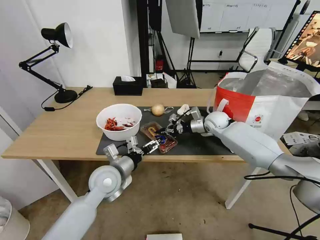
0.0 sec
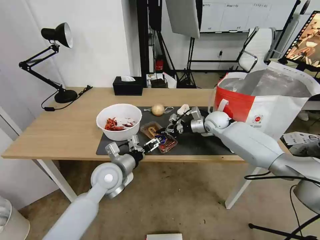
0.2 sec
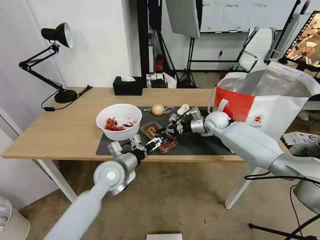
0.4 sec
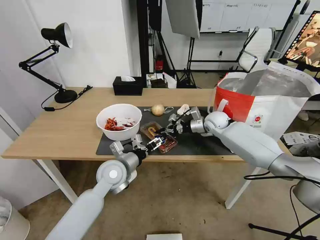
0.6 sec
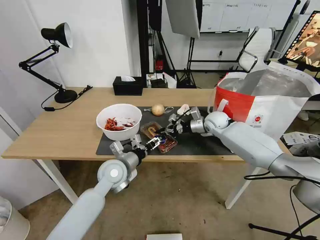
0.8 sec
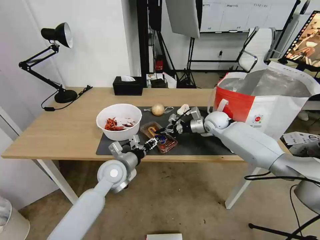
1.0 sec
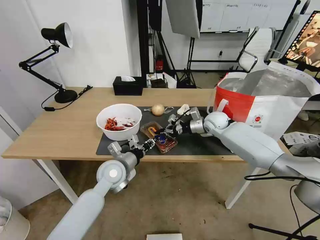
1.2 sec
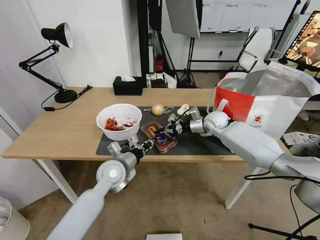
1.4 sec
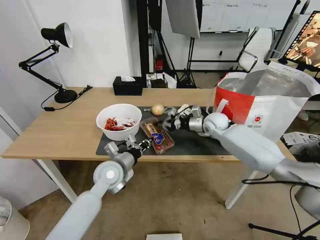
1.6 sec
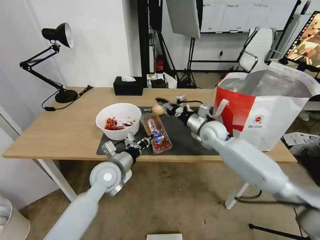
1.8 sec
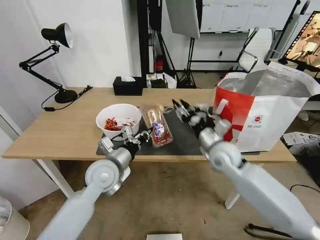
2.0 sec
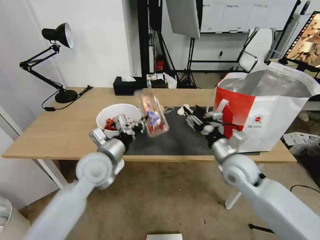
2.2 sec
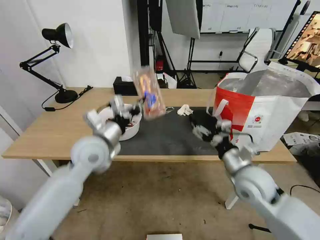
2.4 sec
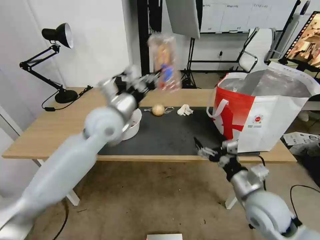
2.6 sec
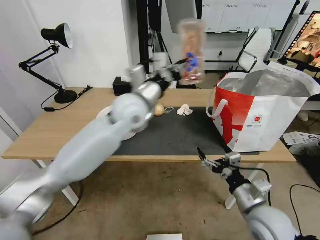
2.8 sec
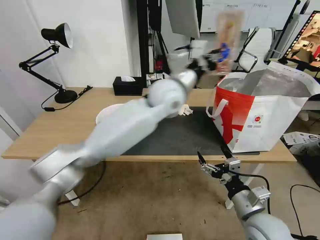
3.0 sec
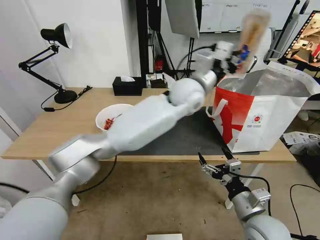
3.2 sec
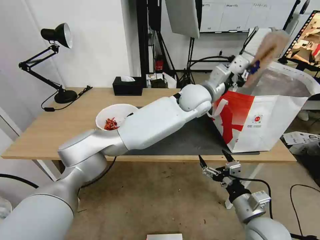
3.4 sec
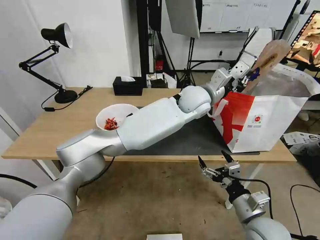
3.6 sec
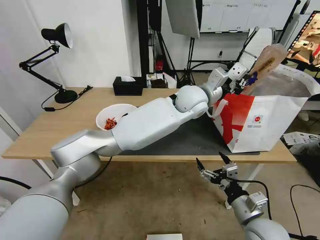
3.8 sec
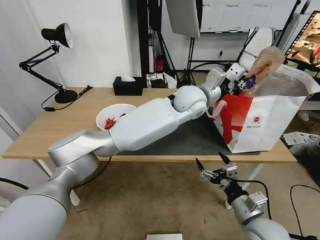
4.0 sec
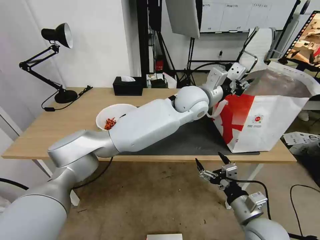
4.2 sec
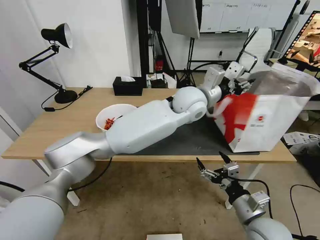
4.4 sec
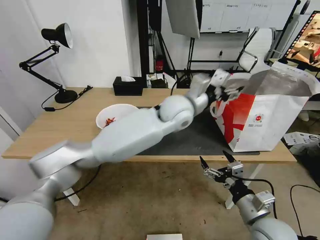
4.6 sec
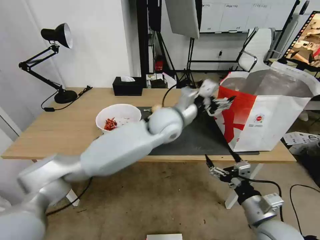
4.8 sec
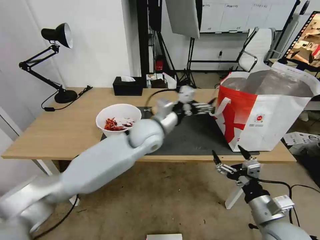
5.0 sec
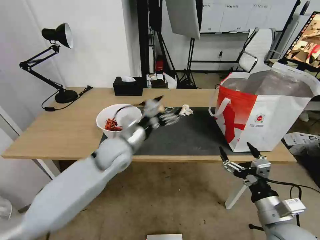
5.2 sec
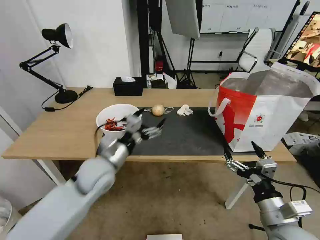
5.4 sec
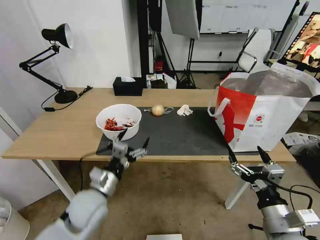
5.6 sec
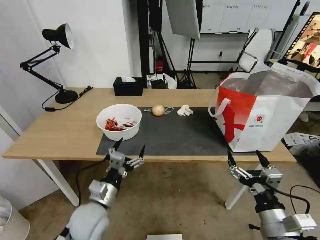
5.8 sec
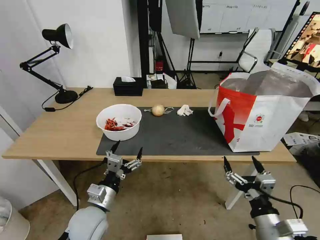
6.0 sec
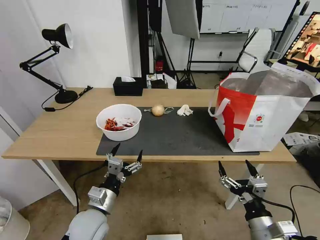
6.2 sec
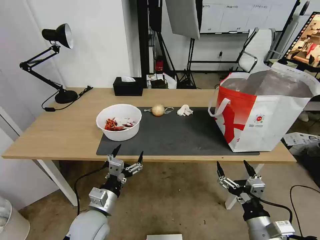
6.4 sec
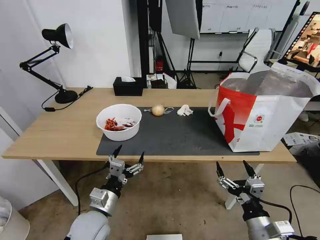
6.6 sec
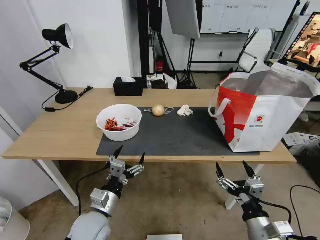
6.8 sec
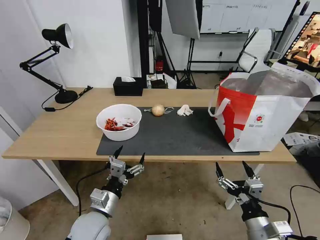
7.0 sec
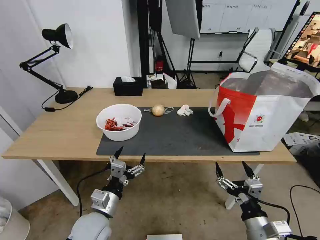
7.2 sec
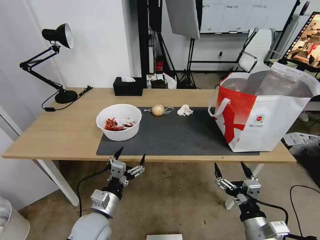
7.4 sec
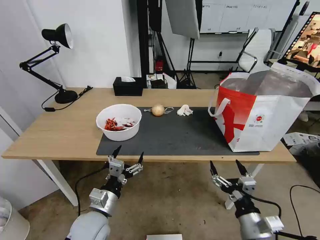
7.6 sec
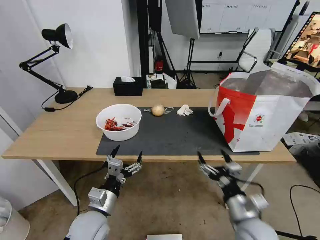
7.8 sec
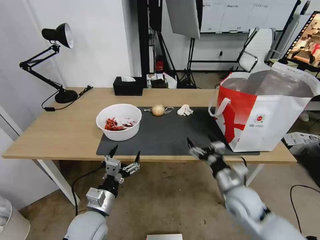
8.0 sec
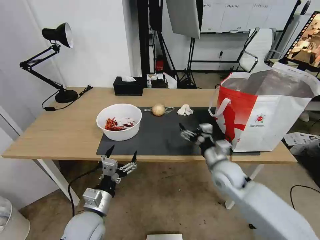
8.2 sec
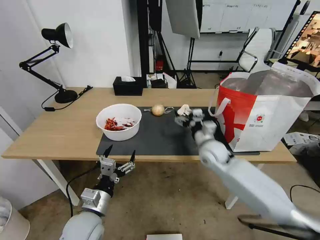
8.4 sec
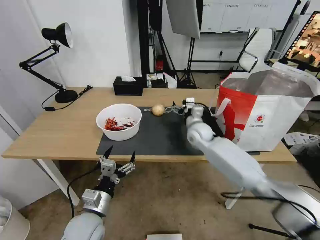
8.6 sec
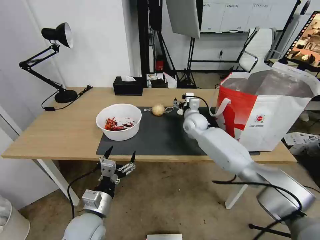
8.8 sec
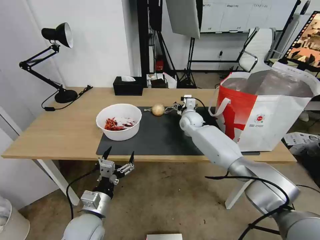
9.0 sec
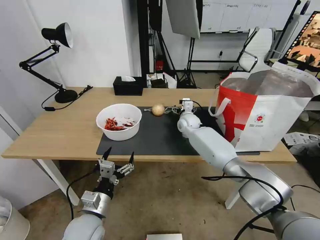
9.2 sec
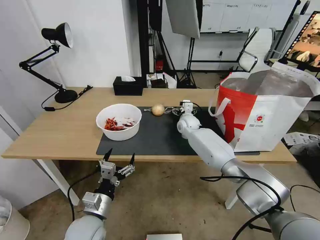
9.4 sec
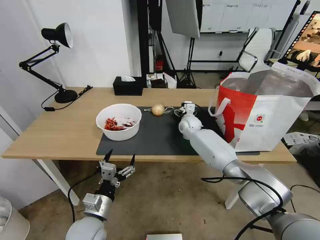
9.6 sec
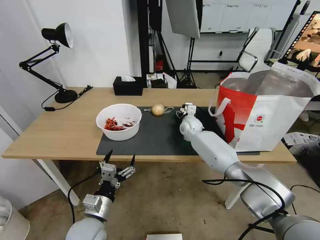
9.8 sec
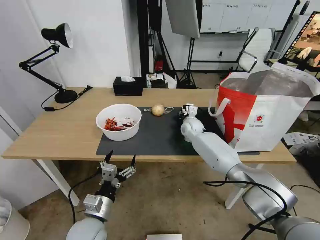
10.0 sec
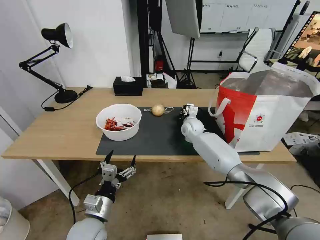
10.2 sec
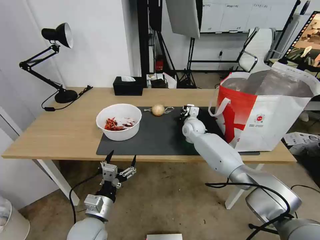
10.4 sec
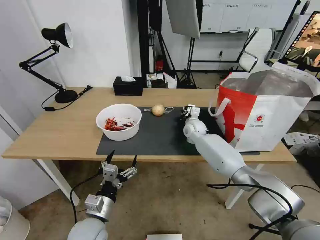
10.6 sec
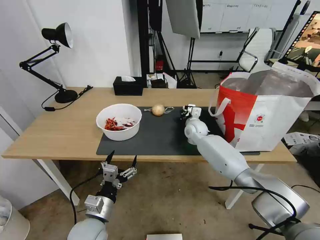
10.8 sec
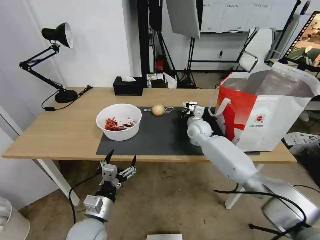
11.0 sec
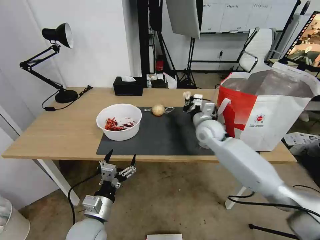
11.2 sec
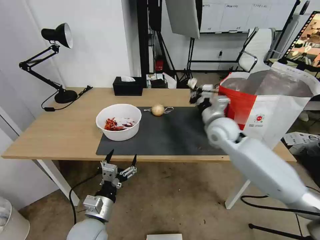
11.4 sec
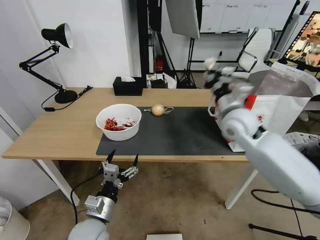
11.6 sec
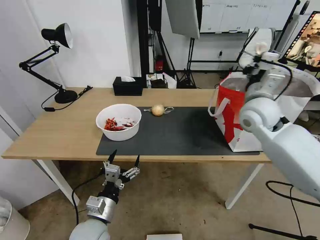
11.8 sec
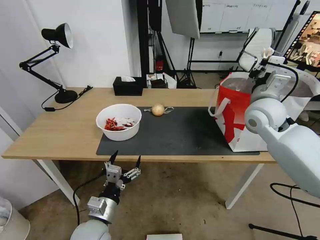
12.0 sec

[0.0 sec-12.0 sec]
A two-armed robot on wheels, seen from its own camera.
Task of the whole recording: Pick up the trash from the table and place it into the takeout bag.
0.0 sec to 1.6 sec: The left gripper closes up.
1.6 sec to 3.0 sec: The left gripper moves upward, to the right and forward, some 30 cm. Meanwhile the right gripper heads backward, covering some 35 cm, and opens.
3.0 sec to 4.4 sec: The left gripper travels to the right by roughly 5 cm, and opens up.
4.4 sec to 6.0 sec: The right gripper shifts roughly 5 cm backward; the left gripper goes roughly 40 cm to the left, backward and downward, and opens up.
6.0 sec to 7.6 sec: There are only small adjustments of the grippers.
7.6 sec to 9.0 sec: The right gripper is displaced forward by roughly 50 cm.
9.0 sec to 10.4 sec: The right gripper closes up.
10.4 sec to 12.0 sec: The right gripper is displaced upward, backward and to the right by roughly 30 cm.

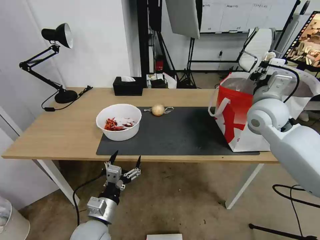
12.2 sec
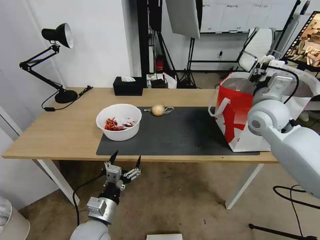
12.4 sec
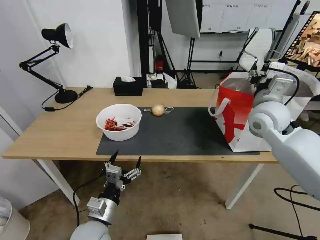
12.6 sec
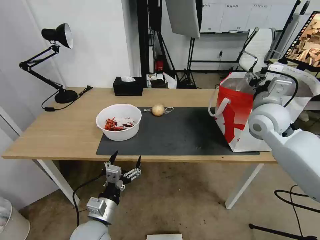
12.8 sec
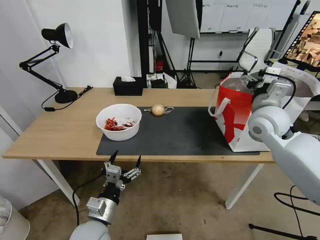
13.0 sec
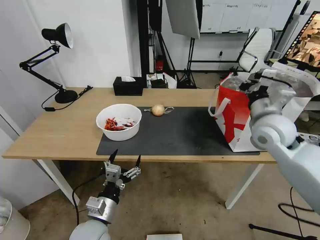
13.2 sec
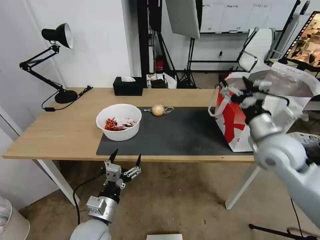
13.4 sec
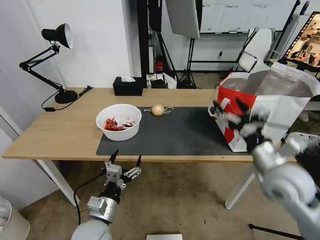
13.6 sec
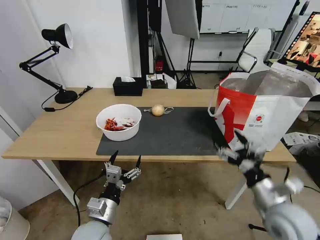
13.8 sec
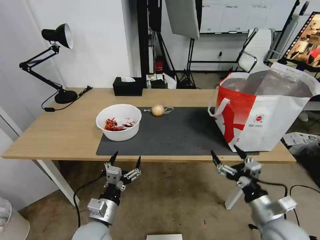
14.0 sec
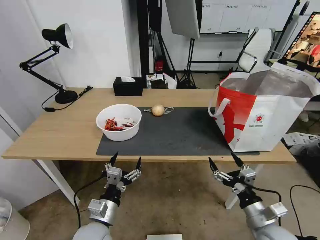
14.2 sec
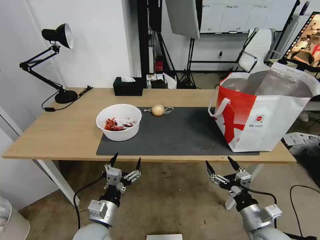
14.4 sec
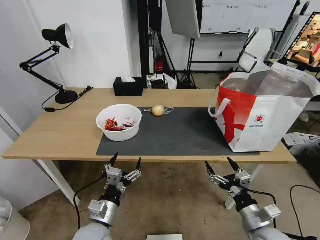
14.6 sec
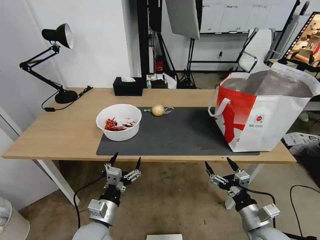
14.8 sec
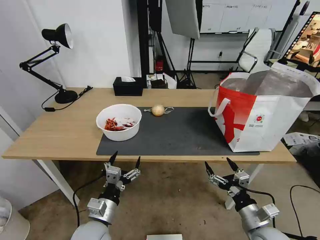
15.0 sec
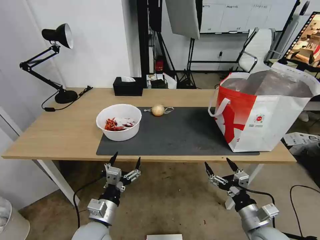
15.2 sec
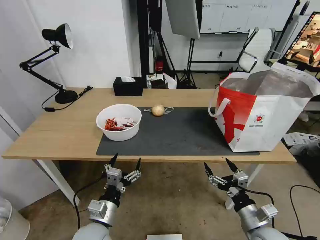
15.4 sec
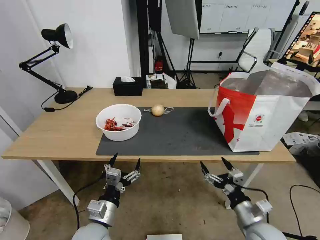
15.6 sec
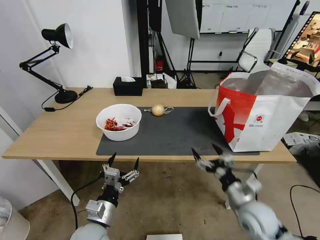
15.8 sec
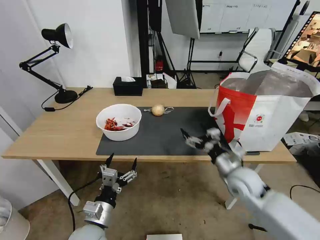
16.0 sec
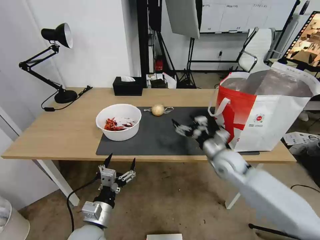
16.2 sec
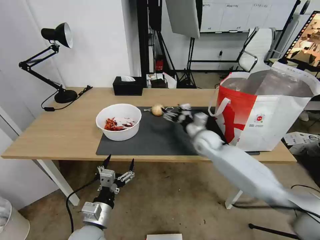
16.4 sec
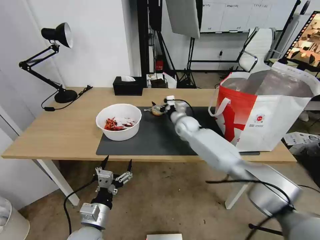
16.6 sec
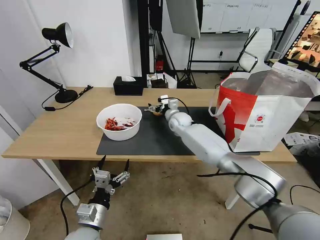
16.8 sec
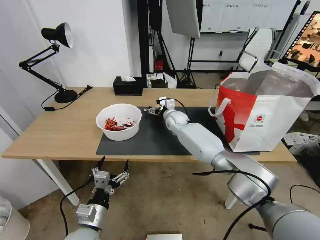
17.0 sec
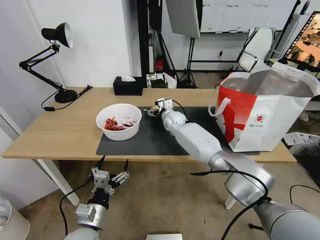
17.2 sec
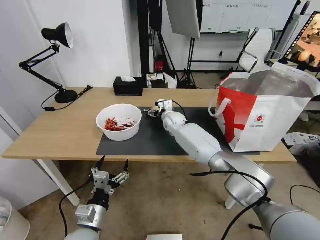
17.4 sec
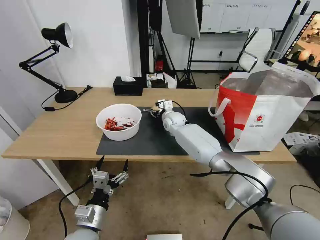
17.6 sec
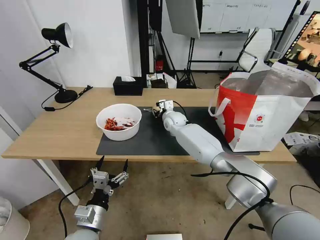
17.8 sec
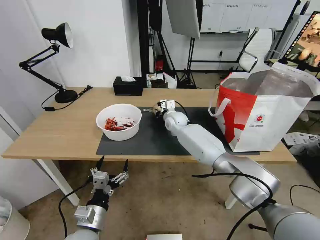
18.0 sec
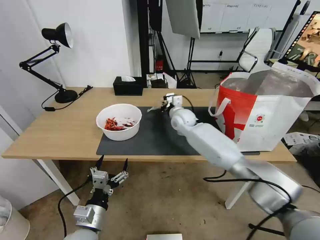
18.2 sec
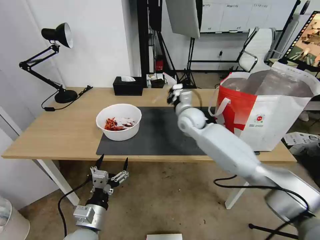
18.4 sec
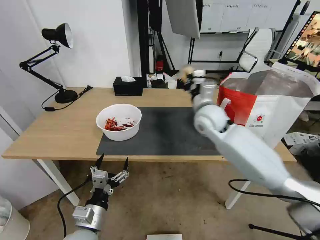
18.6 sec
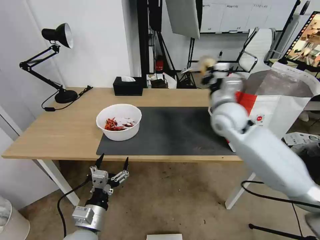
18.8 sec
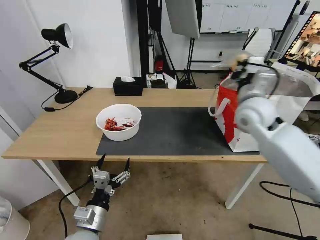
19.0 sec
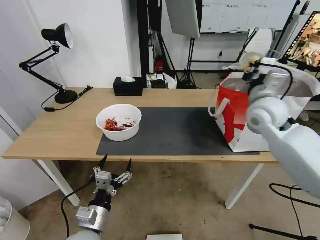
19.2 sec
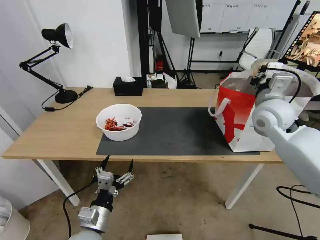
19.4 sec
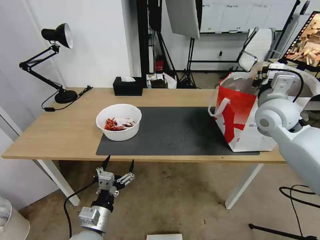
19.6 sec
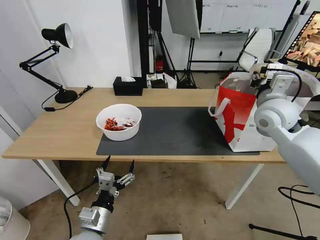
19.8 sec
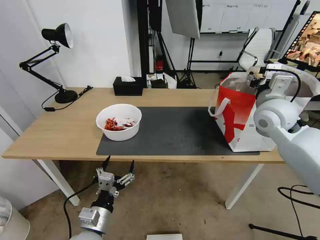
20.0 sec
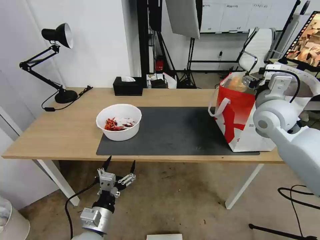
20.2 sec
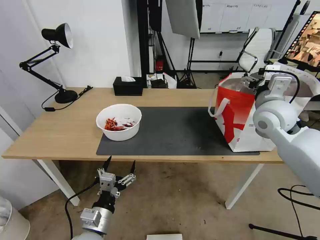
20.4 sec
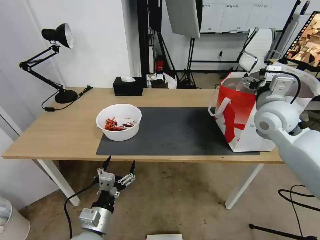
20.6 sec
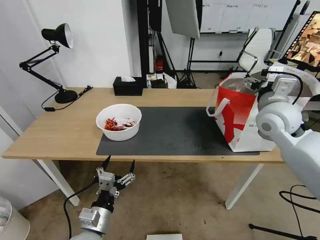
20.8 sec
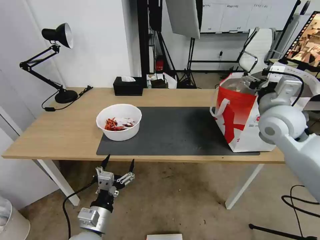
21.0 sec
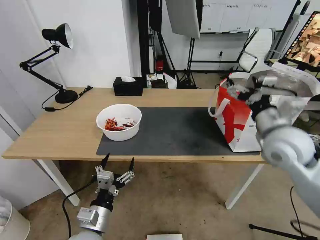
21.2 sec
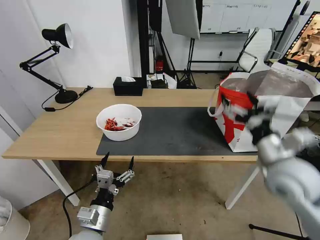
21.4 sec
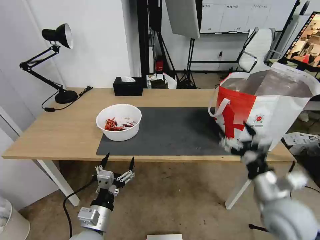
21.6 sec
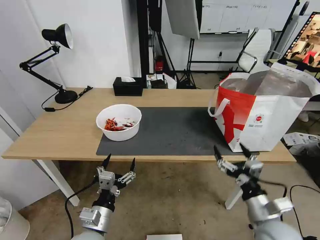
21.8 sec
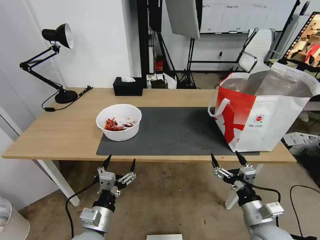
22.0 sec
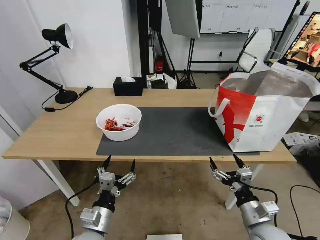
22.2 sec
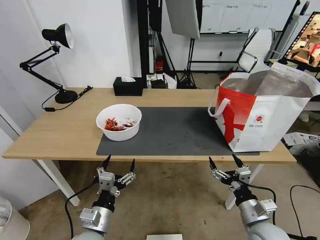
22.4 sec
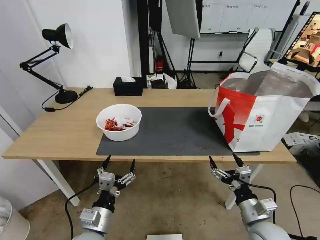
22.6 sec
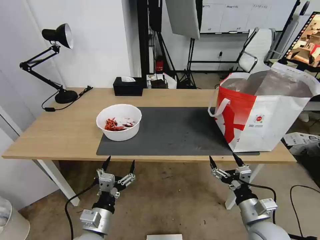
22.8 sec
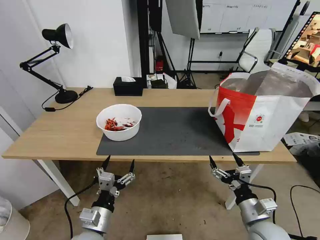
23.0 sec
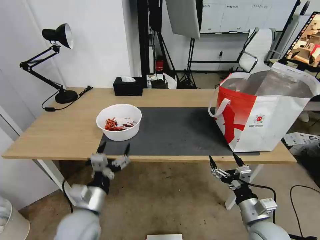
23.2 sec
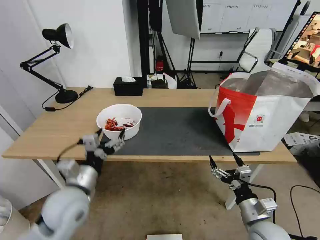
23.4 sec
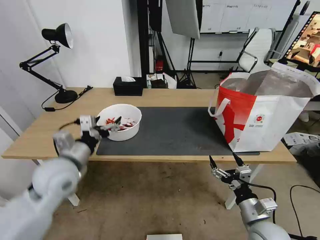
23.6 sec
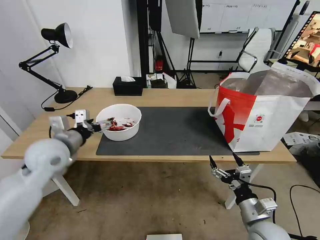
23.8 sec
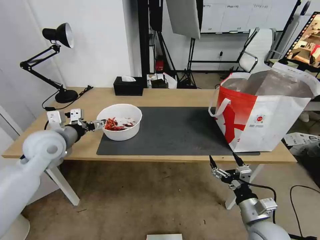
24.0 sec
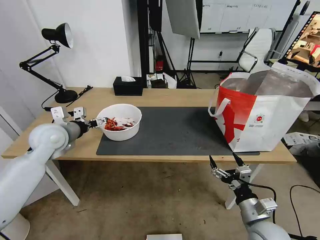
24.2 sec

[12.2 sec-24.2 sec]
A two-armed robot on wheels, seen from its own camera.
Task of the whole recording: Pick up the trash from the table and place it into the takeout bag.
12.2 sec to 13.8 sec: The right gripper shifts roughly 25 cm backward and downward, and opens up.
13.8 sec to 15.2 sec: The right gripper heads downward, covering approximately 10 cm.
15.2 sec to 16.6 sec: The right gripper moves forward and to the left, about 40 cm.
16.6 sec to 18.2 sec: The right gripper moves roughly 5 cm, and closes.
18.2 sec to 19.8 sec: The right gripper goes roughly 30 cm to the right, upward and backward, and opens up.
19.8 sec to 21.2 sec: The right gripper goes roughly 10 cm backward, and opens up.
21.2 sec to 22.6 sec: The right gripper shifts roughly 25 cm downward and backward.
22.6 sec to 24.2 sec: The left gripper travels forward, upward and to the left by roughly 35 cm.
